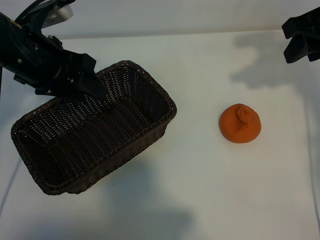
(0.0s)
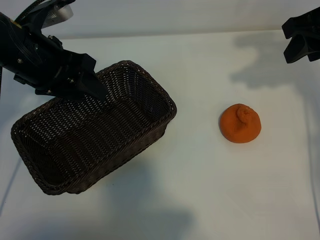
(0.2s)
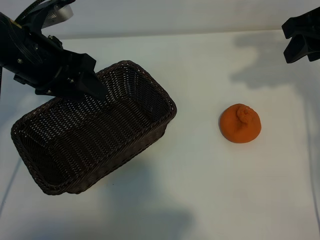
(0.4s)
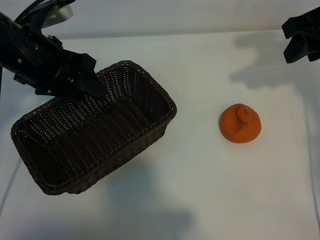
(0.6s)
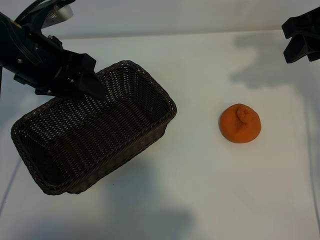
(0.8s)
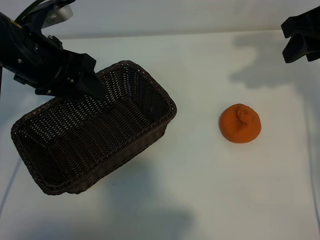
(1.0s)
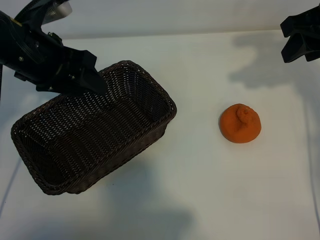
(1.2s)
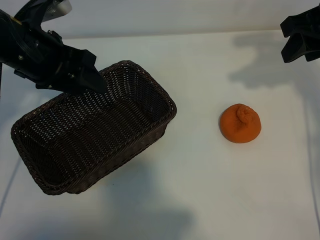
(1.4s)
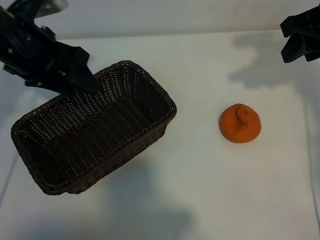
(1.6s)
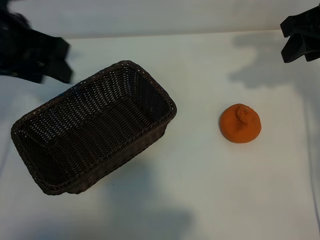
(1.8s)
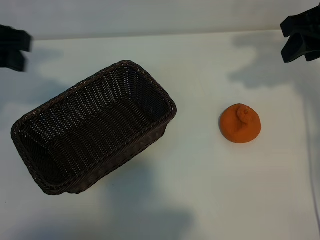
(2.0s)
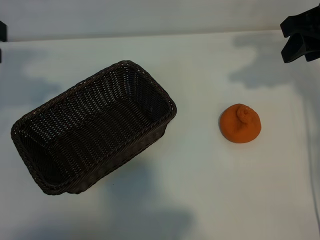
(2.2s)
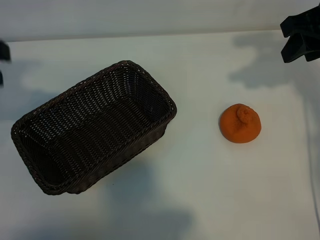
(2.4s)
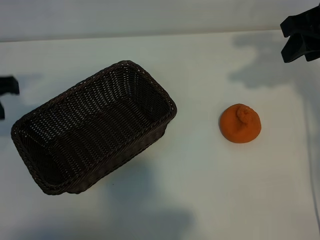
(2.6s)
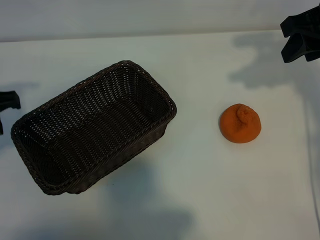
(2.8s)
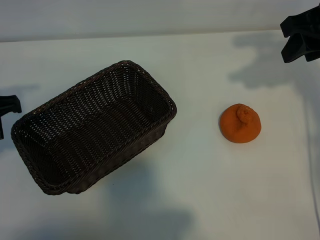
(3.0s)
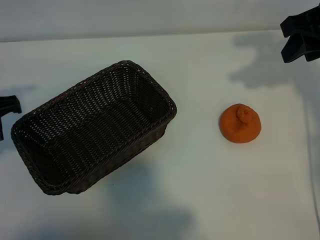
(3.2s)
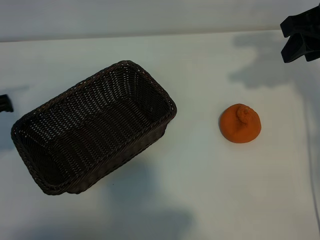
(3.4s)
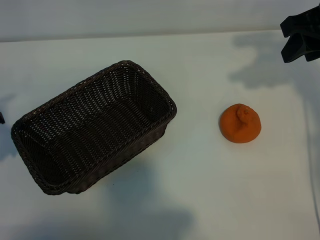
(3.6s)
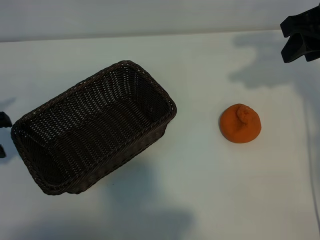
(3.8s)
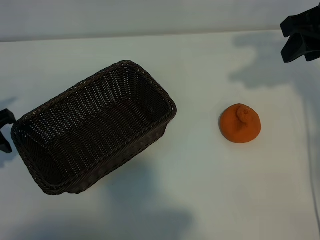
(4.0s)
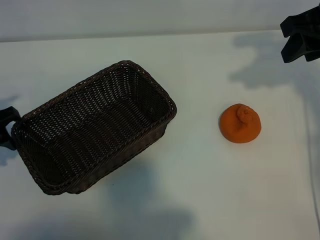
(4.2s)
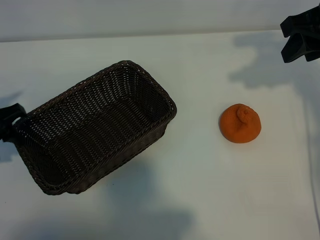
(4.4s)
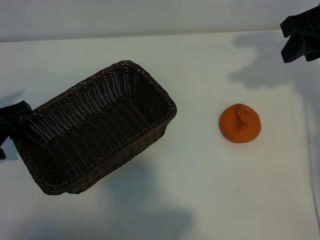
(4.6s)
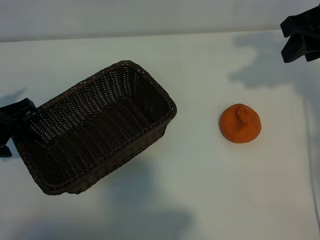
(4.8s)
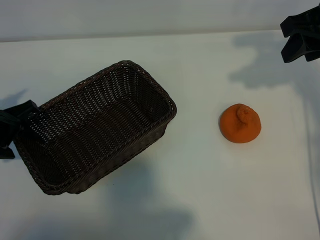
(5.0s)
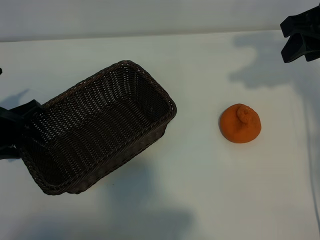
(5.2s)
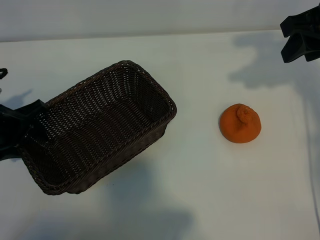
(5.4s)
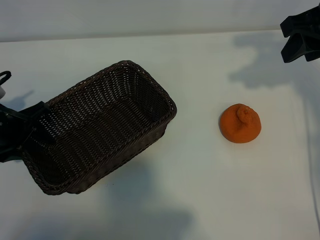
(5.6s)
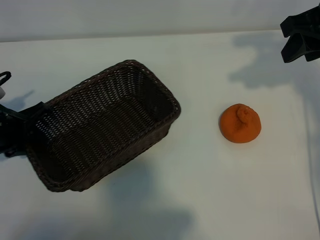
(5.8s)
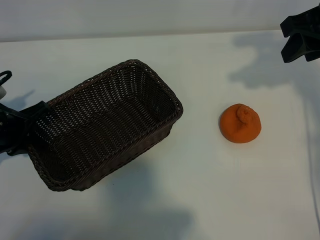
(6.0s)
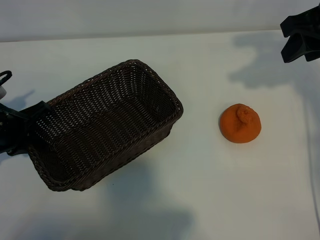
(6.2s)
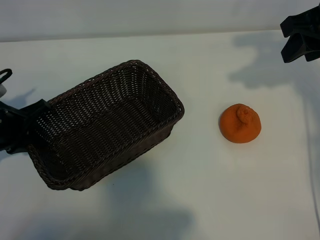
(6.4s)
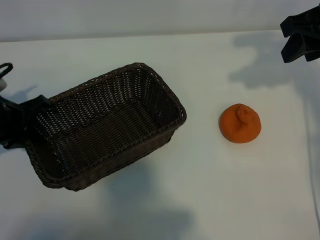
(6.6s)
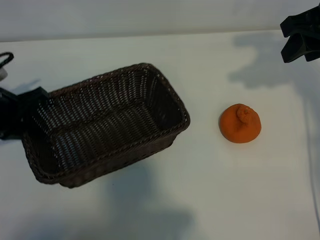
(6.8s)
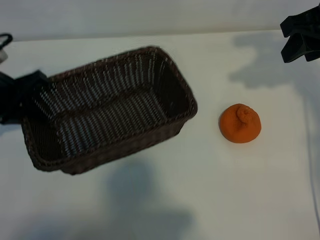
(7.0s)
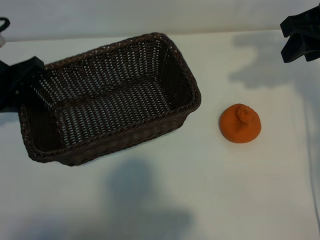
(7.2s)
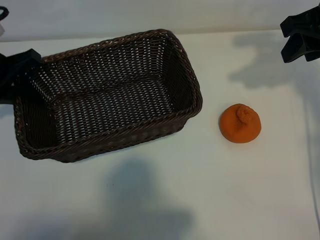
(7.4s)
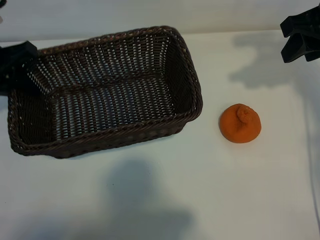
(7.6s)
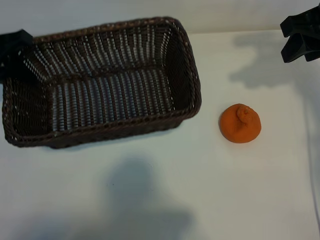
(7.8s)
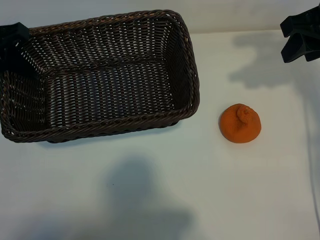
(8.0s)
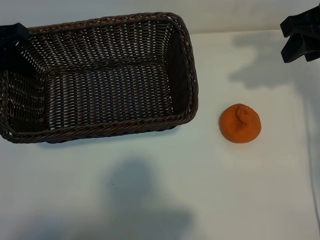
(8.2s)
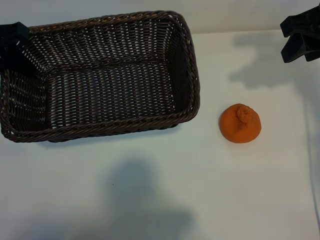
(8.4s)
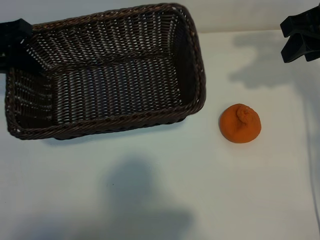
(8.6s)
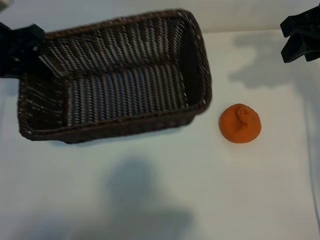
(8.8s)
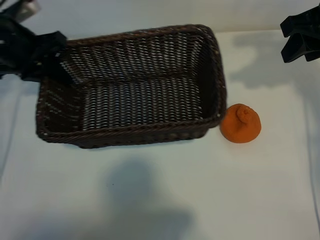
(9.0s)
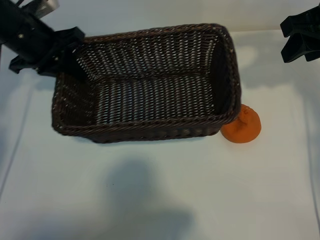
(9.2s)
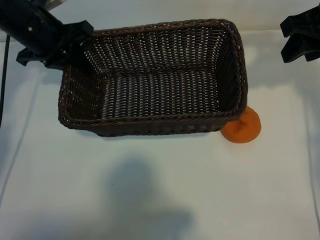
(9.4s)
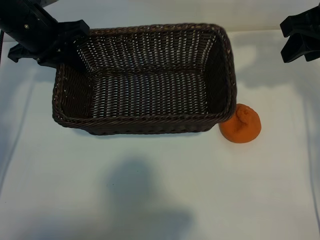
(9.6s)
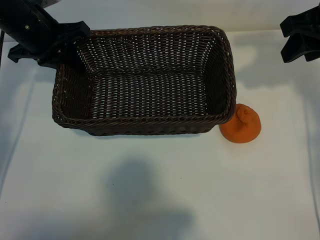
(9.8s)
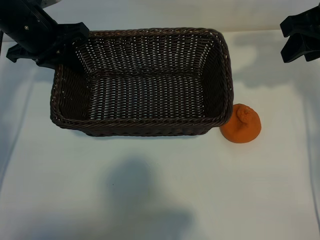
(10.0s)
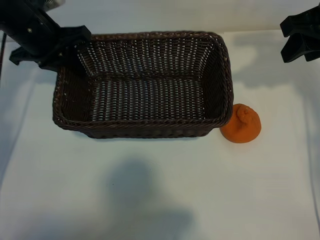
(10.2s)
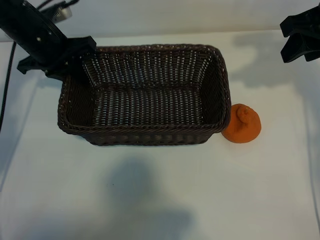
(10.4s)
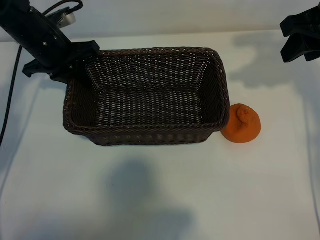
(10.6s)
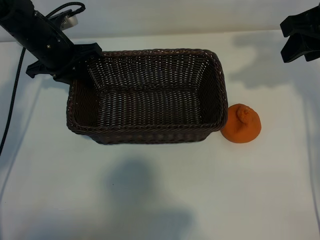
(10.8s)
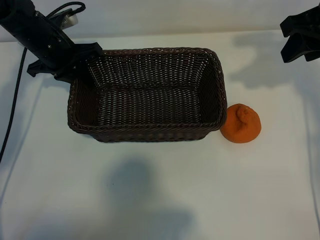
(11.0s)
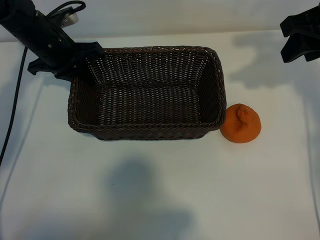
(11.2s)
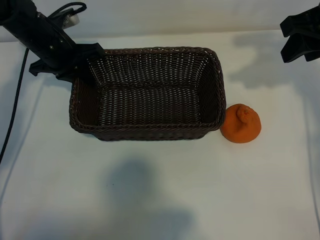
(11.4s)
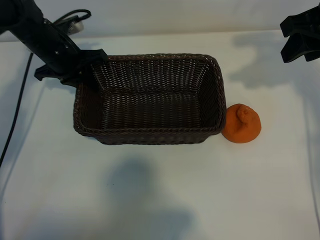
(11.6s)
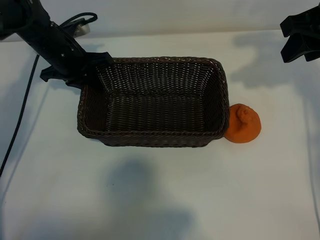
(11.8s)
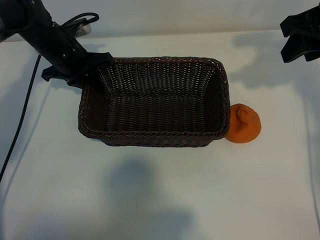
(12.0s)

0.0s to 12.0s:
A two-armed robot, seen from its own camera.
Task of the whole recording: pick up the orange and put it into the basket.
Step, 1.0s to 5.8s: Grasp the basket with left gripper.

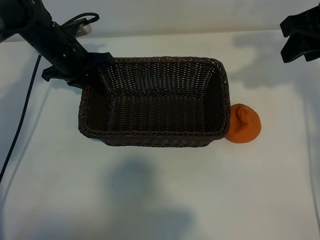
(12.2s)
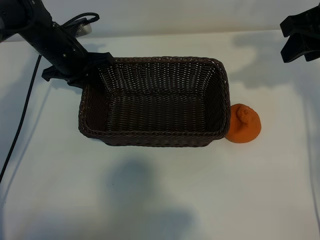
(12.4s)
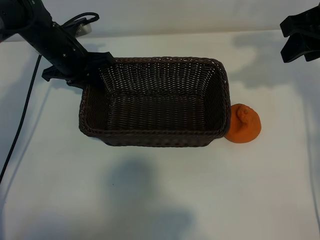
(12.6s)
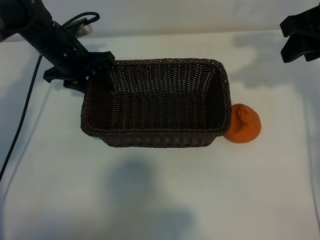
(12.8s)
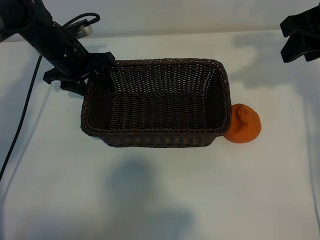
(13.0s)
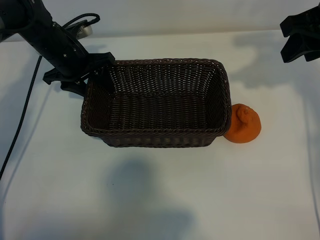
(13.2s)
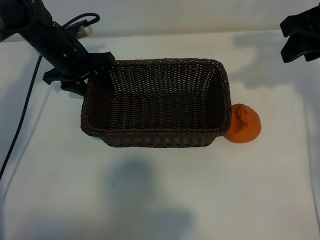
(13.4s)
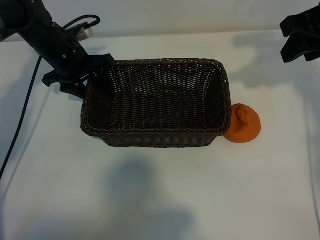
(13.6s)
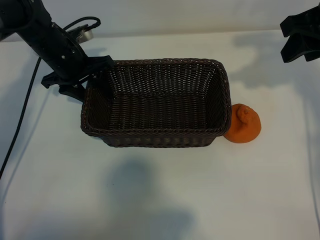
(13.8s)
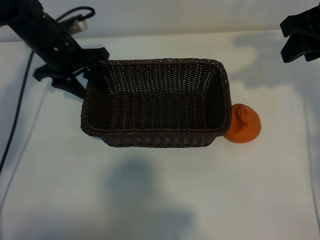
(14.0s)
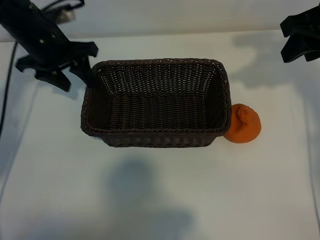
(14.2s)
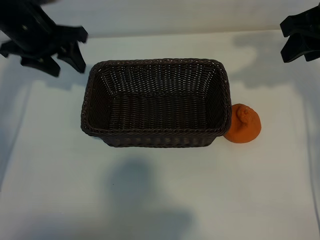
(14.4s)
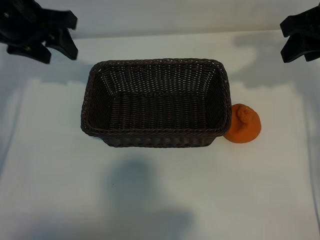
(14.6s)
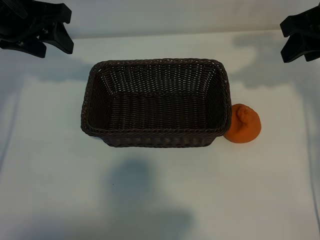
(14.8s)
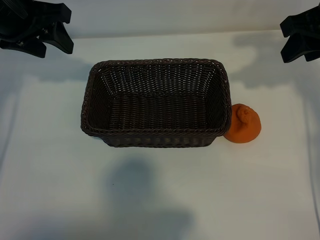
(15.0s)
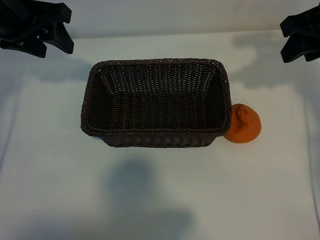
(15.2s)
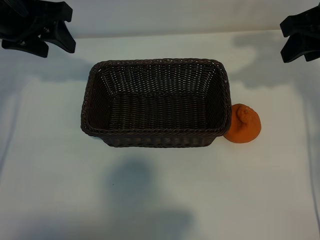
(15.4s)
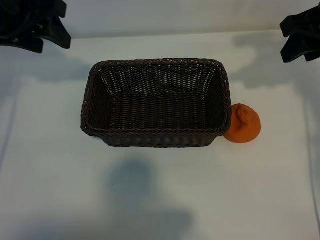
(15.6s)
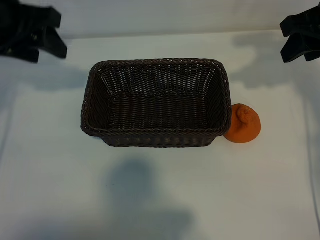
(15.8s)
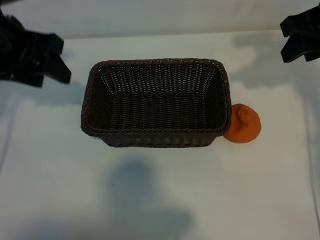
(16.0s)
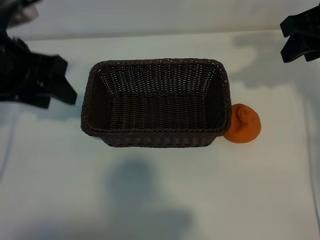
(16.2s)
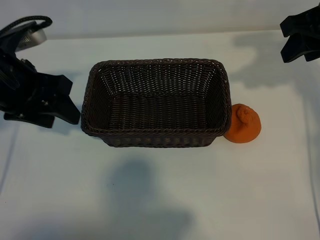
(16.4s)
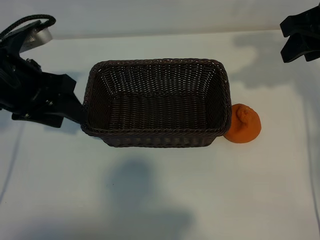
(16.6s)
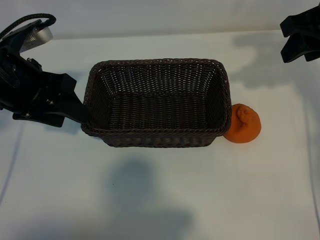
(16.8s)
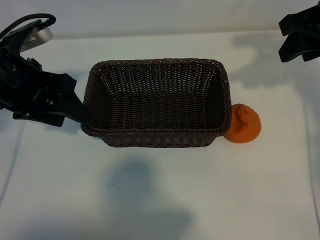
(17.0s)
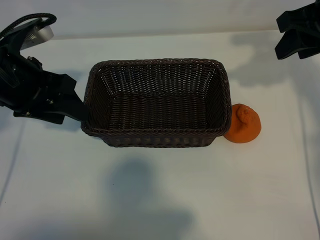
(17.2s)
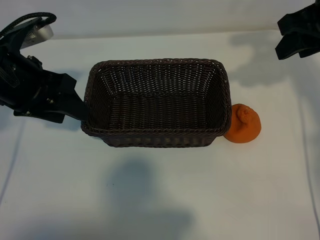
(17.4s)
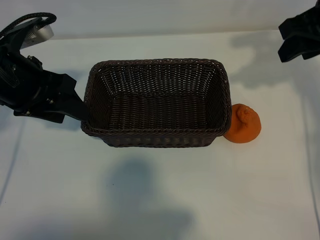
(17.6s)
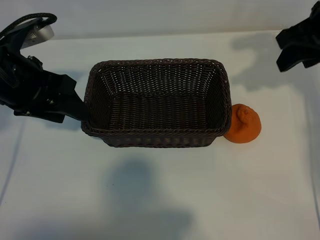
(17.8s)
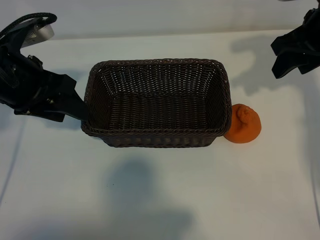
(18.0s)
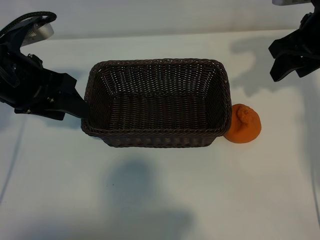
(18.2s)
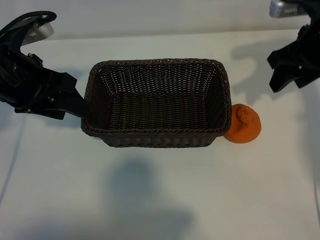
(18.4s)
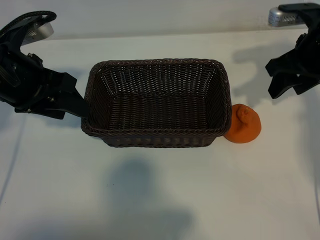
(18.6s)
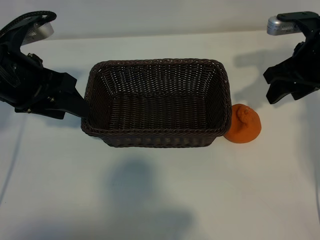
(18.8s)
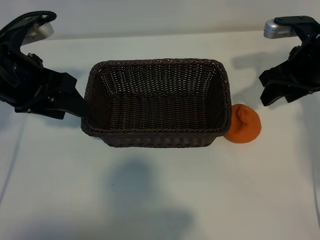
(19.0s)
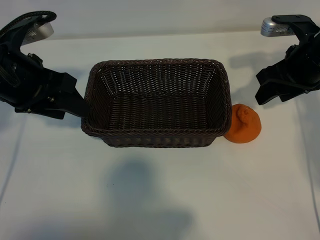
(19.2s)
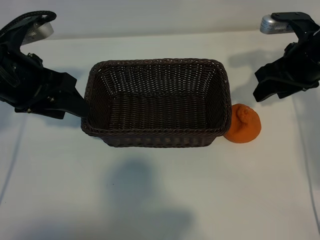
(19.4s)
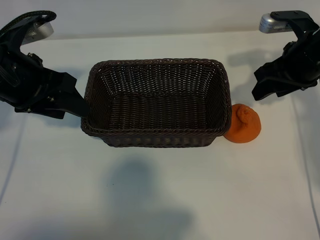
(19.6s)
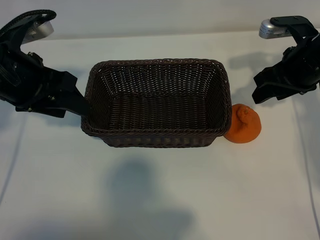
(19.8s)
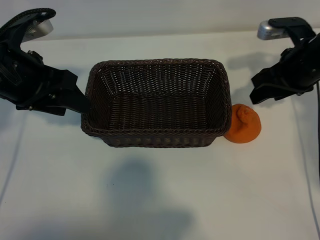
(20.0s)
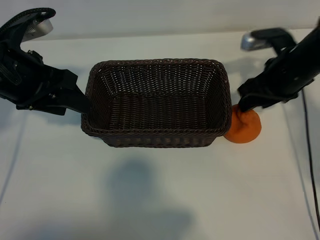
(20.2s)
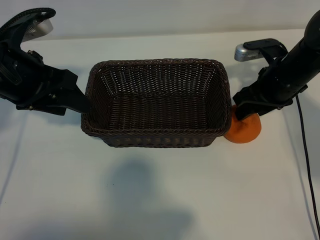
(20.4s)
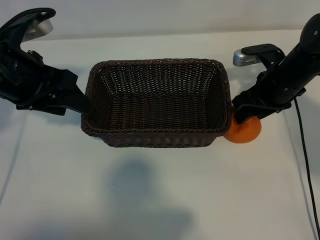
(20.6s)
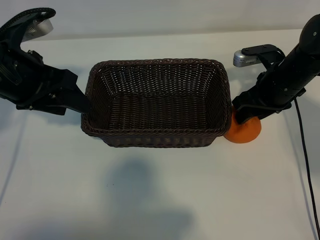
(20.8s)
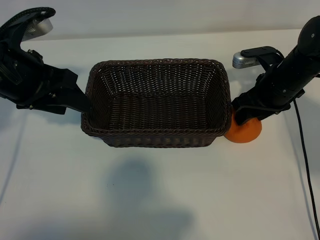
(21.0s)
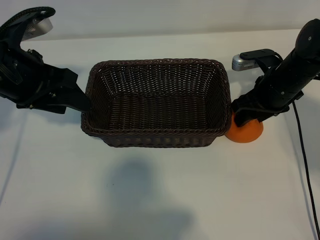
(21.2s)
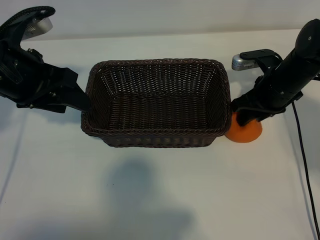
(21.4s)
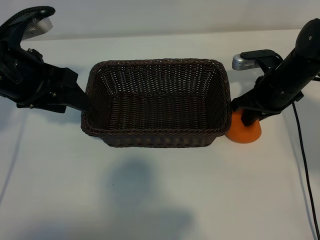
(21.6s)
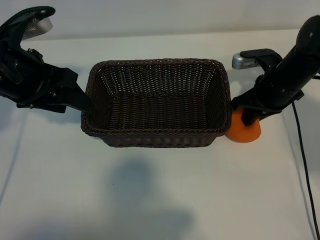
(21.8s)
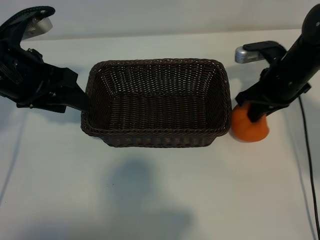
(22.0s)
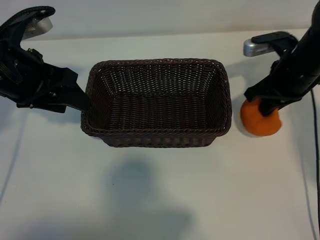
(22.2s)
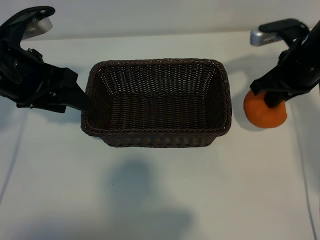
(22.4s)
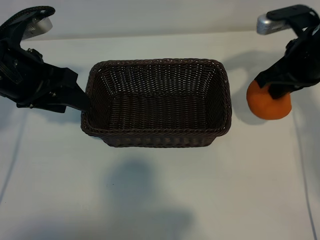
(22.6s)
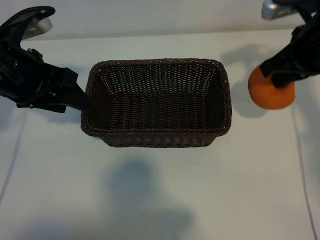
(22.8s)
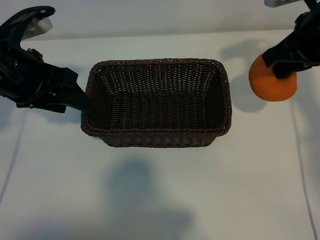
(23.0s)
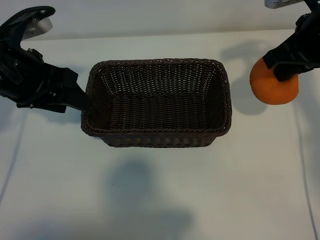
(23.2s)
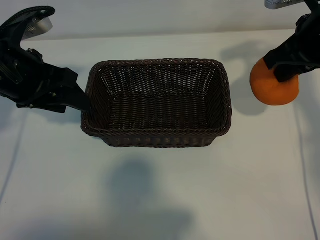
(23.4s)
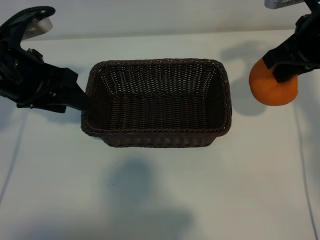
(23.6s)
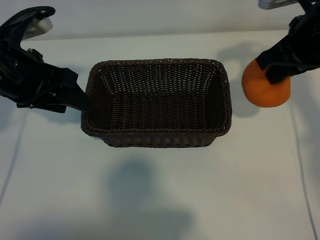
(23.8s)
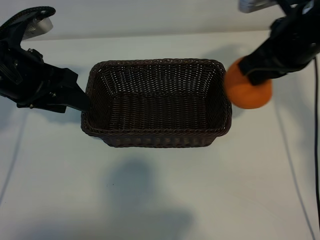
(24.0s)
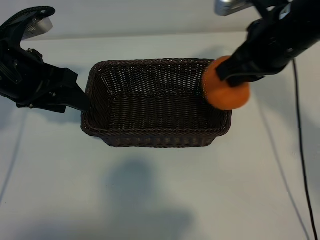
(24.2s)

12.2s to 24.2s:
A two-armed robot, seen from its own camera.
Task of the whole recording: pick up the orange and put it into the basket.
Step, 12.8s to 21.4s: Grasp the orange with right gripper.
